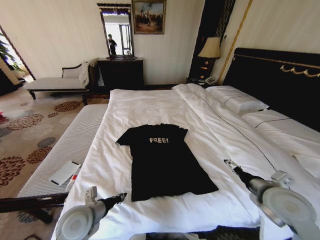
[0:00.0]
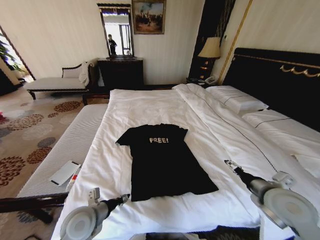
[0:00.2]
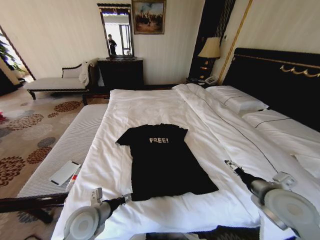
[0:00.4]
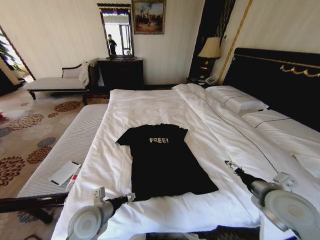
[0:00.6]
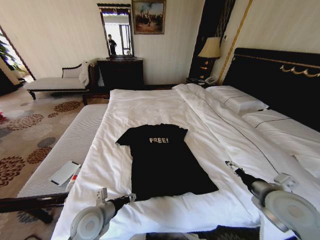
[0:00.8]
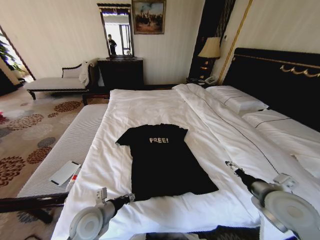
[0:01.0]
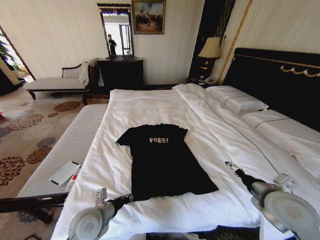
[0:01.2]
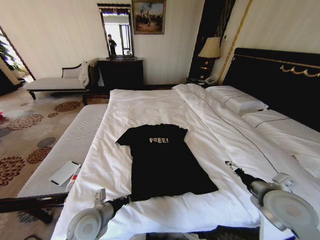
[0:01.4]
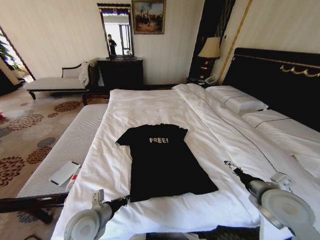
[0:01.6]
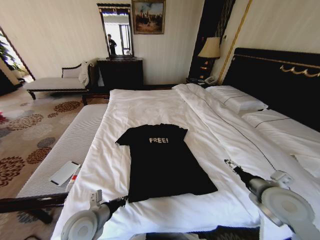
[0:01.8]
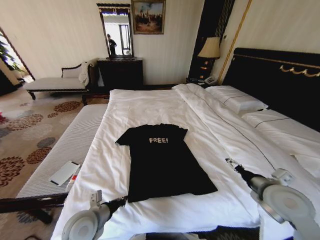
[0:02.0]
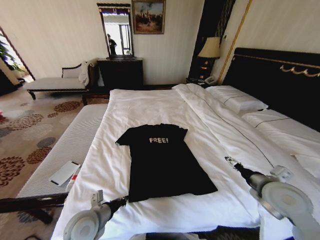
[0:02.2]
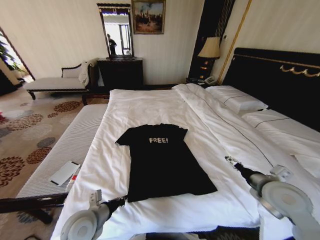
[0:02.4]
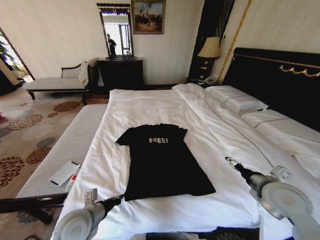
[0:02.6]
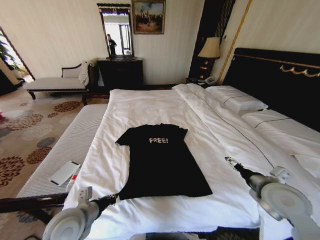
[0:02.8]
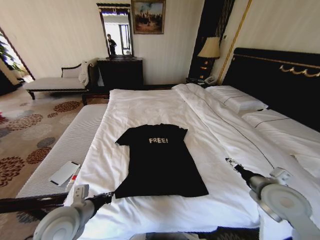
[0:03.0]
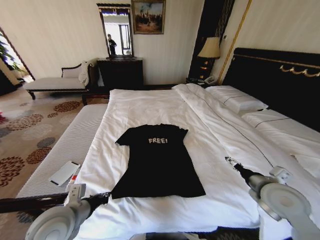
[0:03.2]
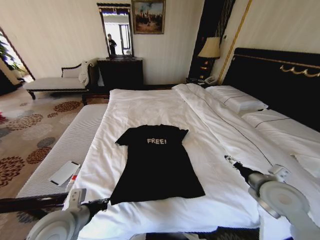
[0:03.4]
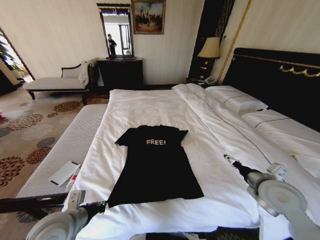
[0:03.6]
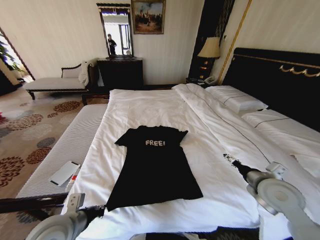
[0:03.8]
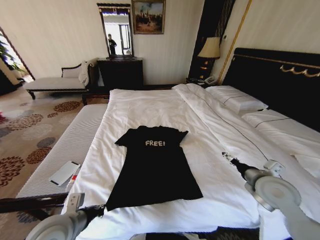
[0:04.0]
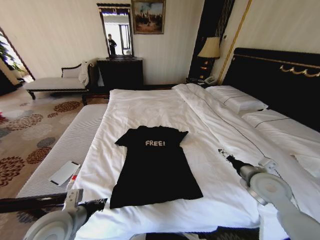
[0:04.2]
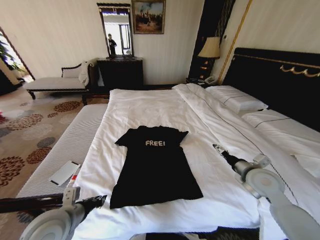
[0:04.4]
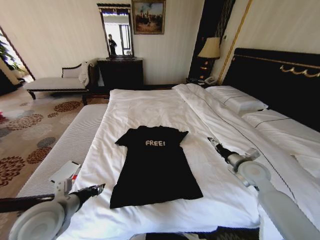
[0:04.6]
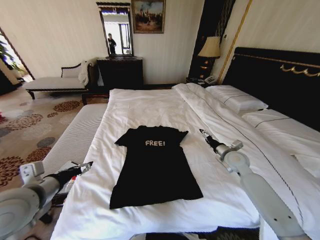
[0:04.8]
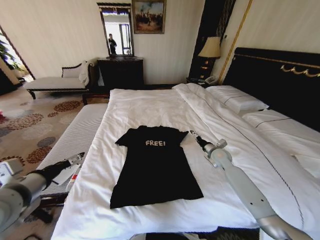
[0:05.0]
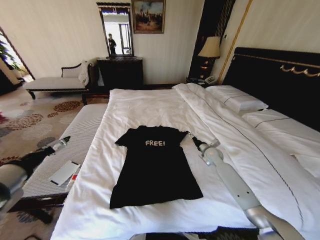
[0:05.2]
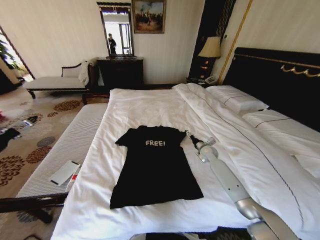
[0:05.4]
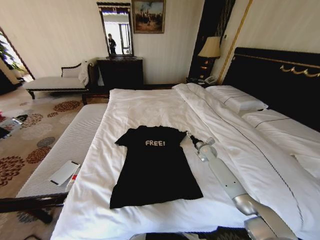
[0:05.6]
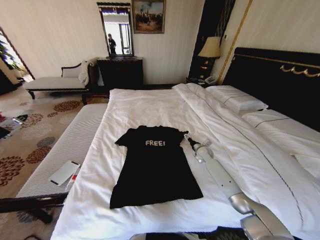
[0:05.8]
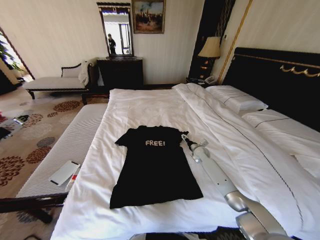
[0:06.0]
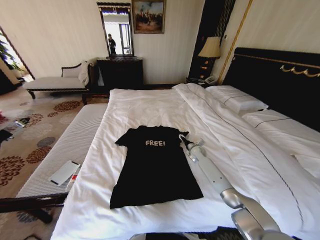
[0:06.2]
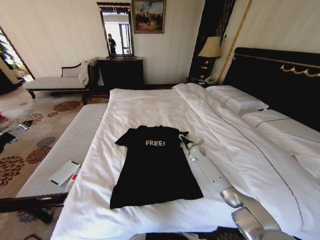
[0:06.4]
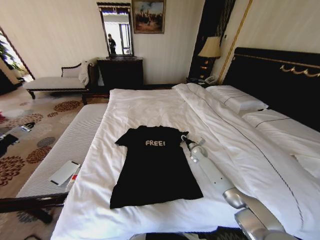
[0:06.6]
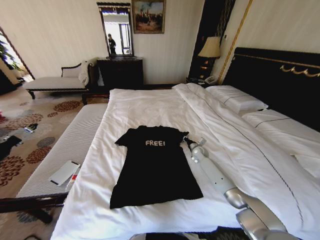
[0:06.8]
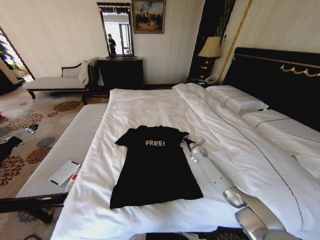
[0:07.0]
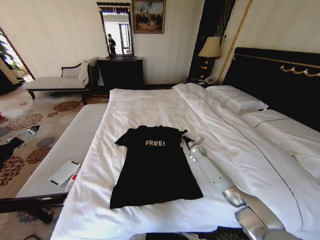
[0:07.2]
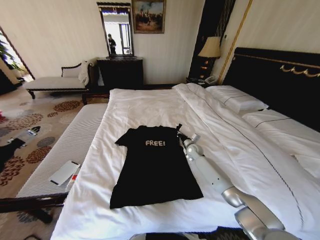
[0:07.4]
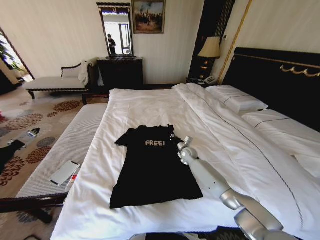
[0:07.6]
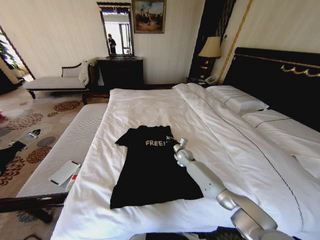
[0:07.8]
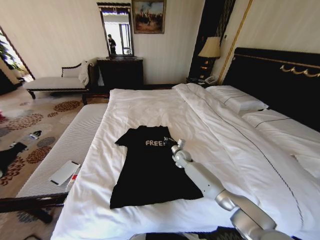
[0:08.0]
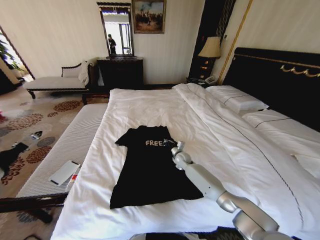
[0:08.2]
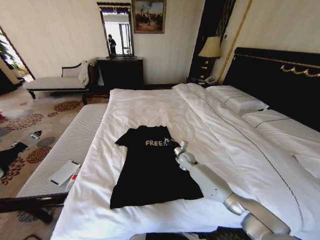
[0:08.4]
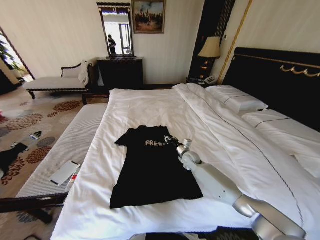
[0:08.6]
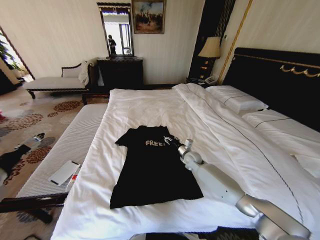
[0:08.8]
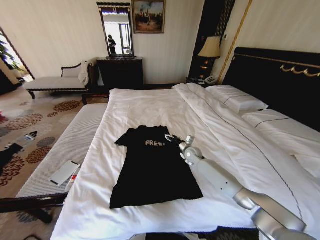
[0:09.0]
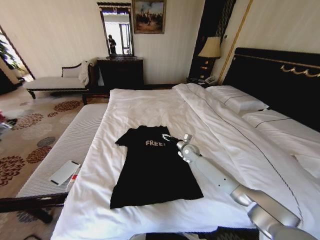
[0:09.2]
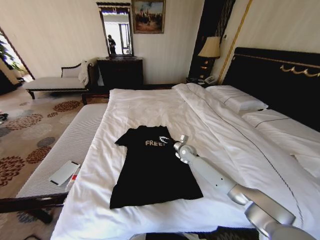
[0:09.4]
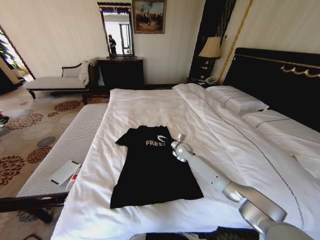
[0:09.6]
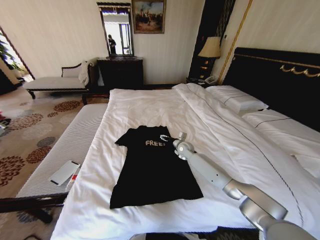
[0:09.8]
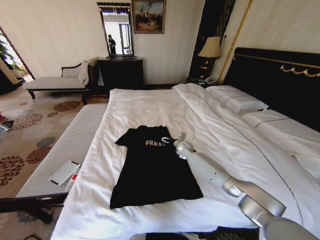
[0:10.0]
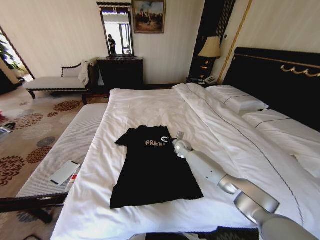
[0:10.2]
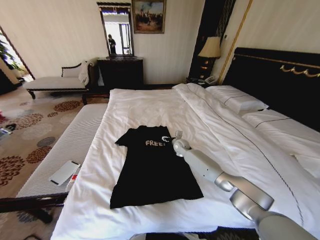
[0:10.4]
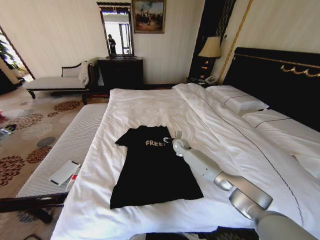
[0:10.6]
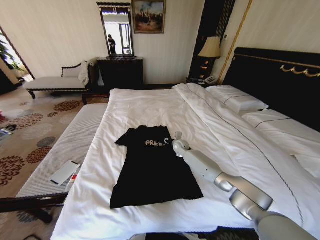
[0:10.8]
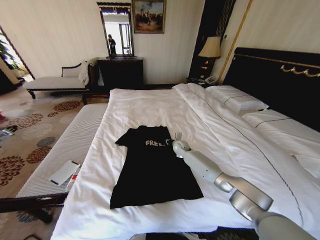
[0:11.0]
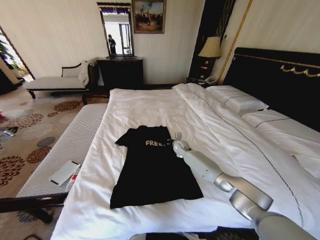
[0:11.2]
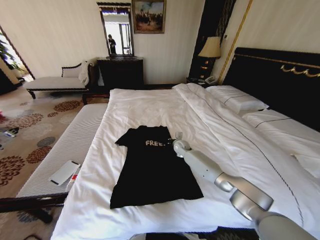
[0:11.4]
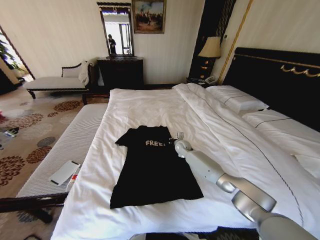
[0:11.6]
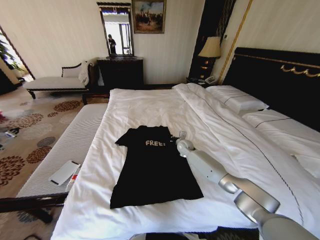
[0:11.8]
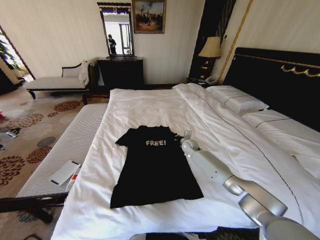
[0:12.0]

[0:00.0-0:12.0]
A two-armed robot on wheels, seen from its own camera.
Task of the whole recording: Fold the clothes on the bed.
0:00.0 to 0:01.6: The left gripper opens, then closes once more.
0:01.6 to 0:03.0: The left gripper goes roughly 5 cm upward.
0:03.0 to 0:04.4: The right gripper is displaced forward by roughly 5 cm.
0:04.4 to 0:06.0: The left gripper is displaced upward and to the left by some 25 cm, and opens its fingers; the right gripper heads forward and downward, covering roughly 30 cm.
0:06.0 to 0:07.6: The right gripper shifts roughly 10 cm to the left, and closes.
0:07.6 to 0:09.0: The right gripper opens.
0:09.0 to 0:10.4: The right gripper is displaced forward and to the left by roughly 10 cm.
0:10.4 to 0:12.0: The right gripper closes.

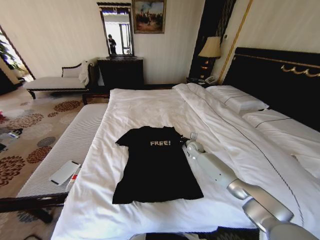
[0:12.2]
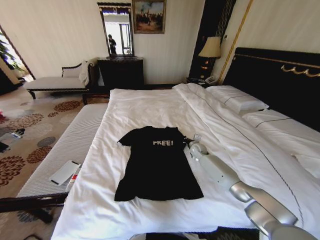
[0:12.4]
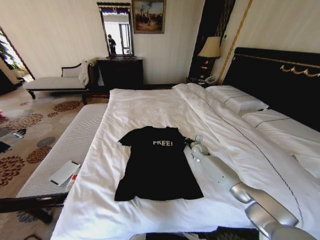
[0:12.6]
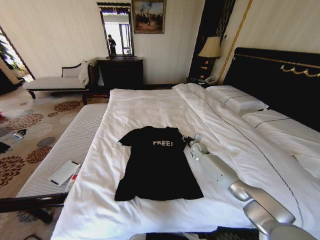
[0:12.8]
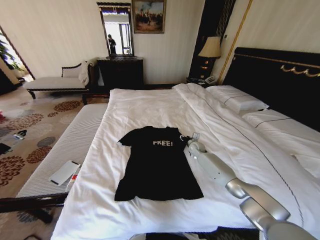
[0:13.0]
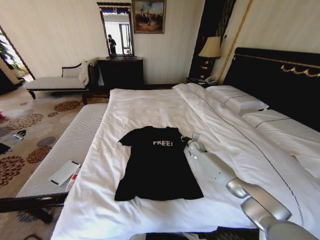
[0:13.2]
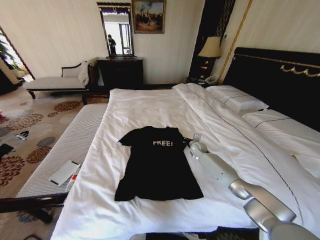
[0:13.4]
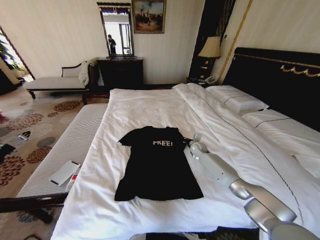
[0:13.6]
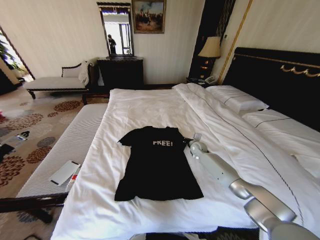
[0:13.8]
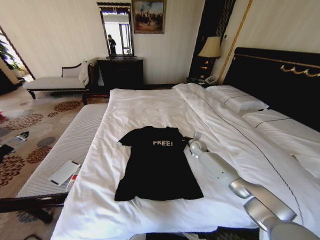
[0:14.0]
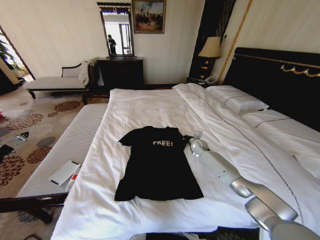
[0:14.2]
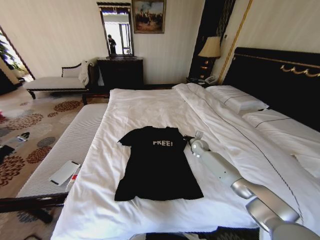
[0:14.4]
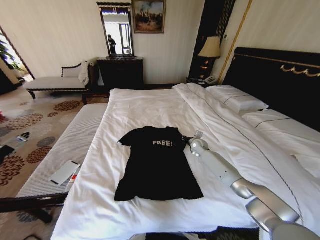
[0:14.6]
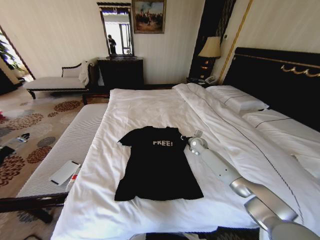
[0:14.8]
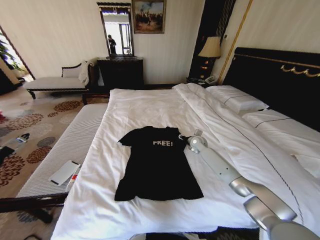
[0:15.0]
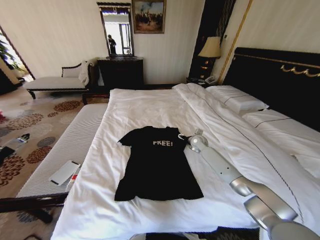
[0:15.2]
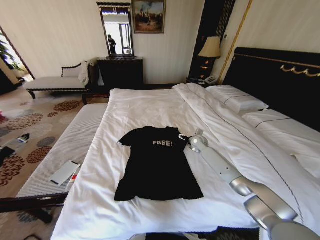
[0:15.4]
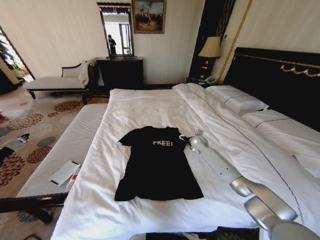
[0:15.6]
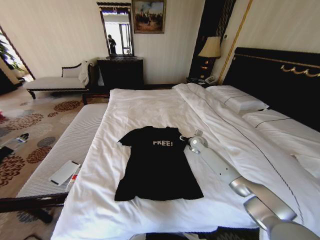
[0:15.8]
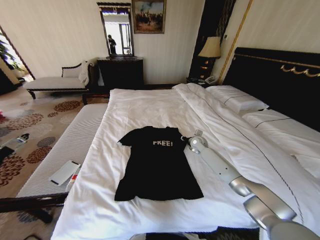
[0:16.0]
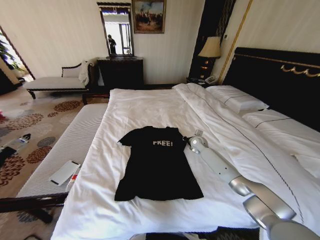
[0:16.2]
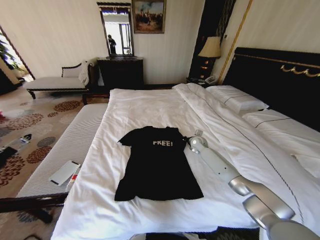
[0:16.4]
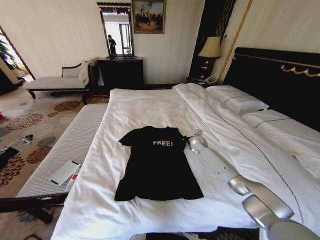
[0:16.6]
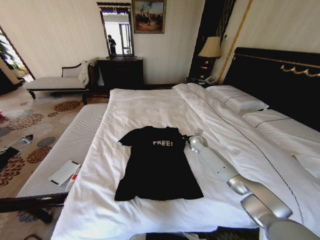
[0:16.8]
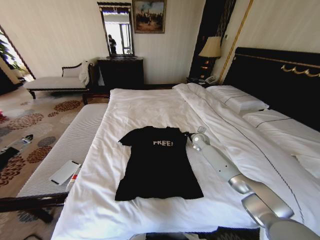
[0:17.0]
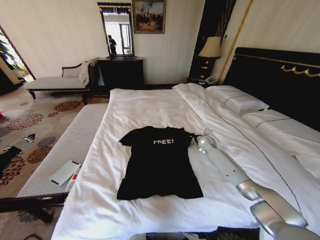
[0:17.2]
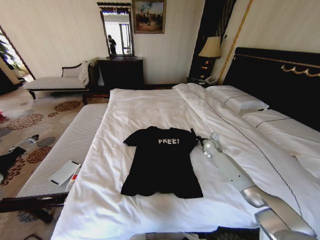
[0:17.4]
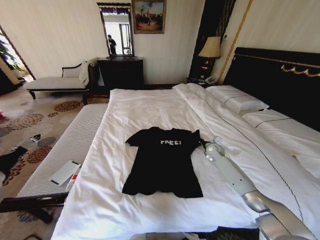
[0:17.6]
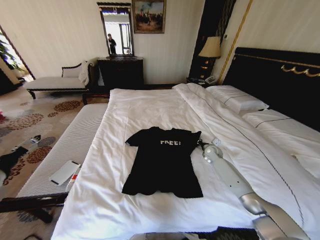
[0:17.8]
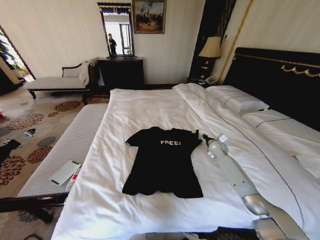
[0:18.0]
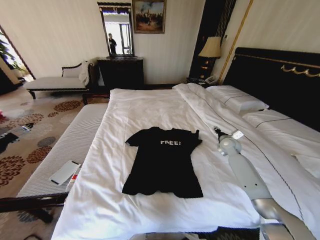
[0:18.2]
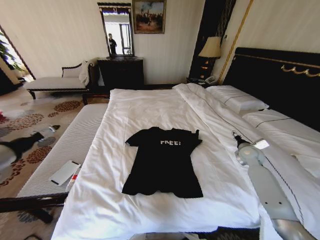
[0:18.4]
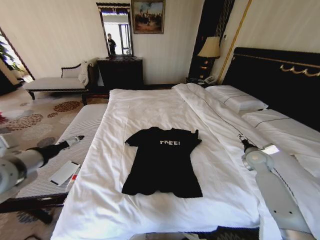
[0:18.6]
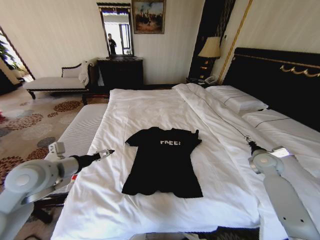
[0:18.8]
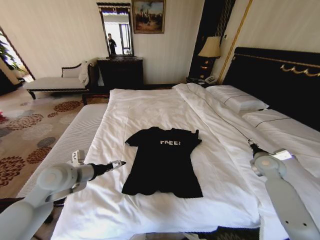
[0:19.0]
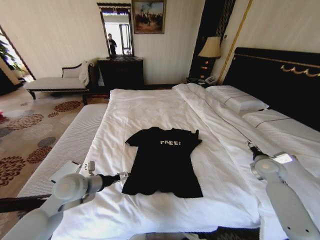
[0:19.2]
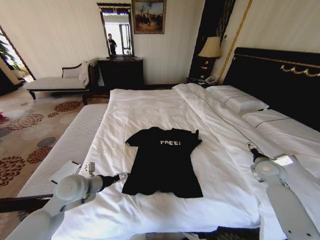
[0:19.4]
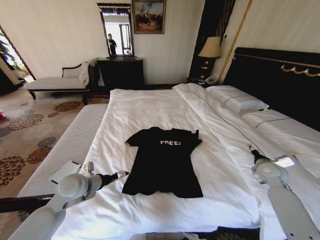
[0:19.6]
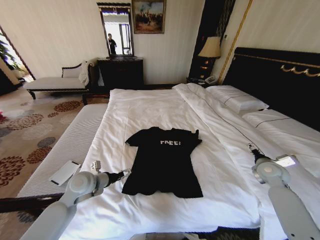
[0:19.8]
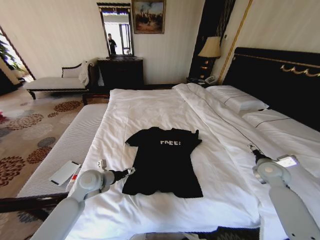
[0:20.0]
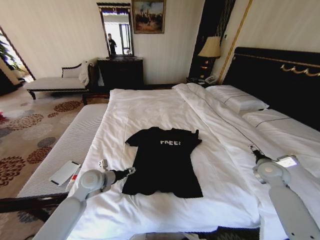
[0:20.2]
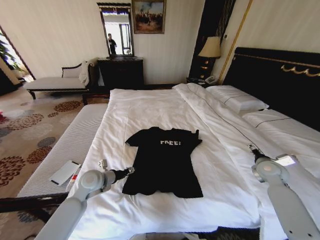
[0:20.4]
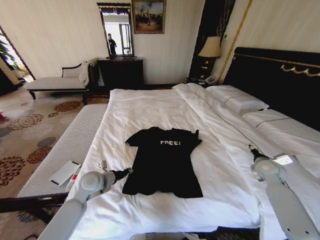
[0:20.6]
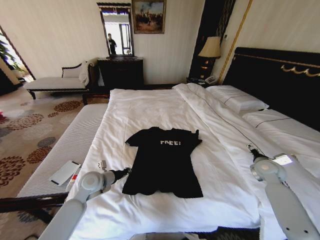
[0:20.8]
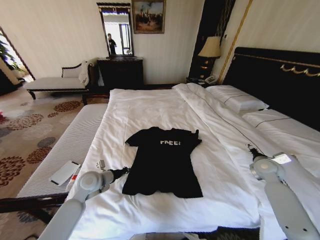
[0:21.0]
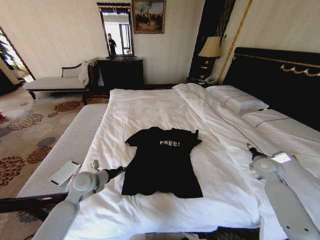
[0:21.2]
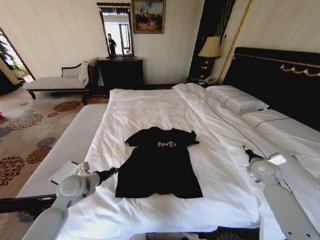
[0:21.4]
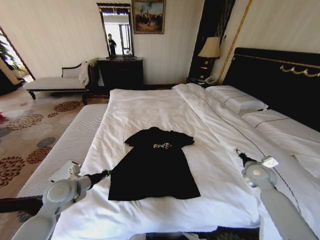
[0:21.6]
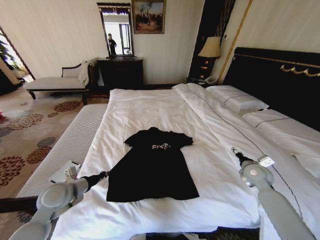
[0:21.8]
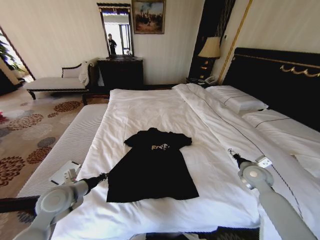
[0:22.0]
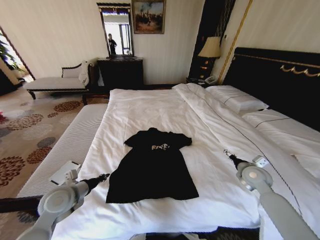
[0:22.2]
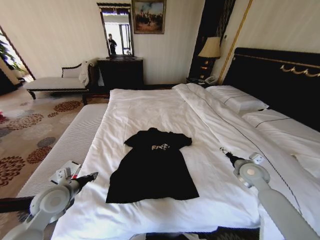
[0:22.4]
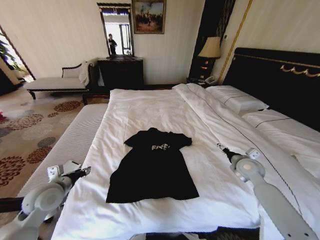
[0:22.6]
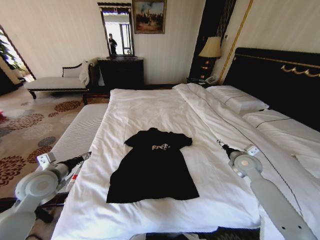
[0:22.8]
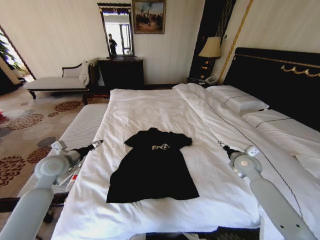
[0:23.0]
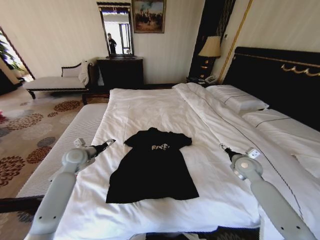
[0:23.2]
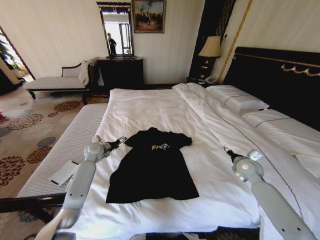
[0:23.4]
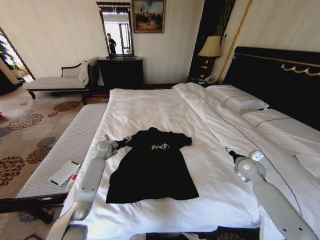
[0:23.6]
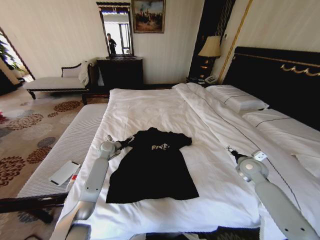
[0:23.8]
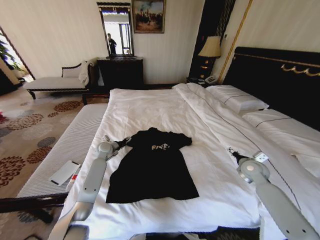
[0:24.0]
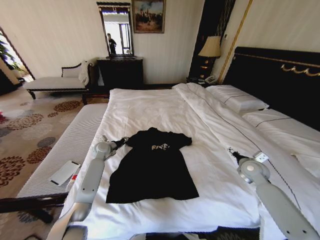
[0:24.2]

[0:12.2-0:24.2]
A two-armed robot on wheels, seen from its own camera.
Task of the whole recording: Fold the clothes on the bed.
0:12.2 to 0:13.8: The right gripper opens and closes again.
0:13.8 to 0:15.2: The right gripper opens its fingers.
0:15.2 to 0:16.6: The right gripper closes.
0:16.6 to 0:18.2: The right gripper heads to the right and backward, covering roughly 15 cm, and opens its fingers. The left gripper shifts by some 5 cm.
0:18.2 to 0:19.8: The right gripper travels backward and to the right by about 20 cm, and opens. Meanwhile the left gripper travels downward, to the right and forward by roughly 30 cm.
0:19.8 to 0:21.2: The left gripper closes its fingers.
0:21.2 to 0:22.6: The right gripper goes about 10 cm to the left. The left gripper is displaced to the left, backward and upward by about 10 cm, and opens its fingers.
0:22.6 to 0:24.2: The left gripper is displaced forward by roughly 25 cm, and opens, then closes again.
